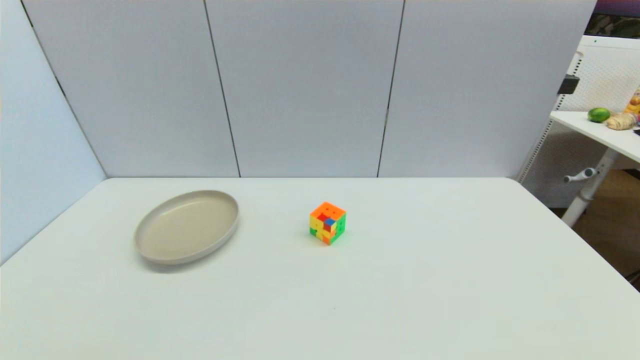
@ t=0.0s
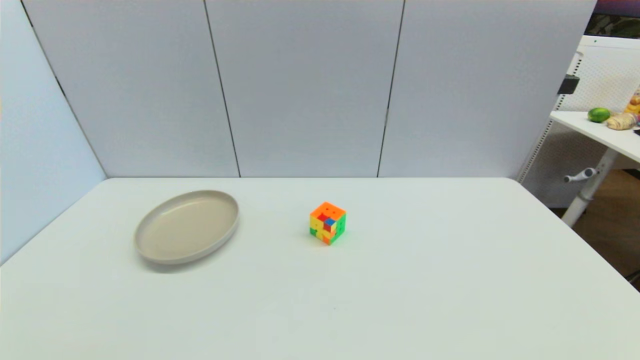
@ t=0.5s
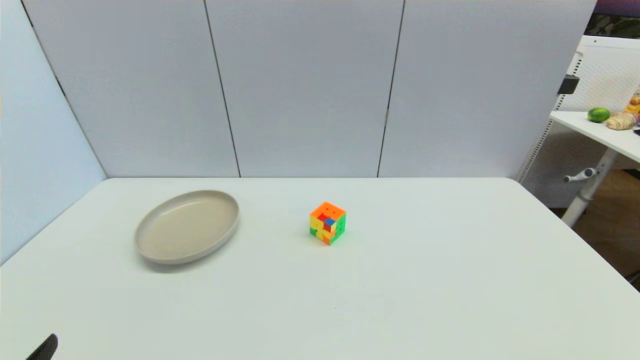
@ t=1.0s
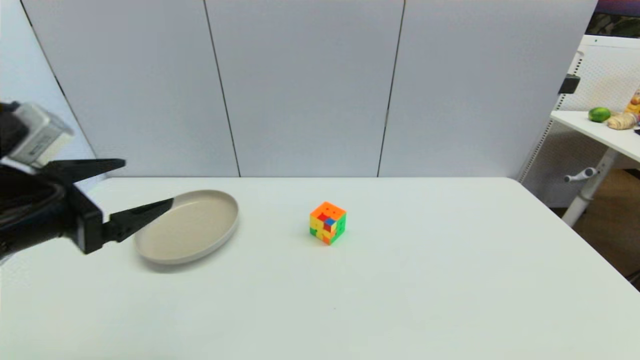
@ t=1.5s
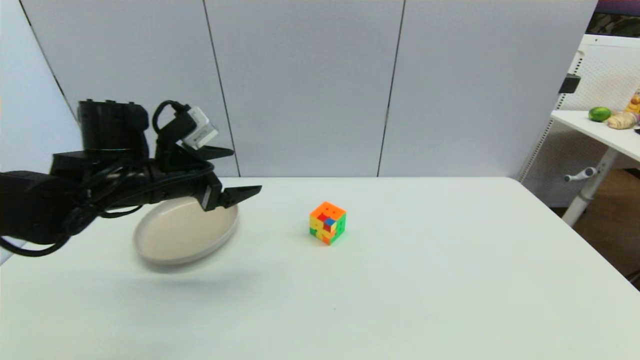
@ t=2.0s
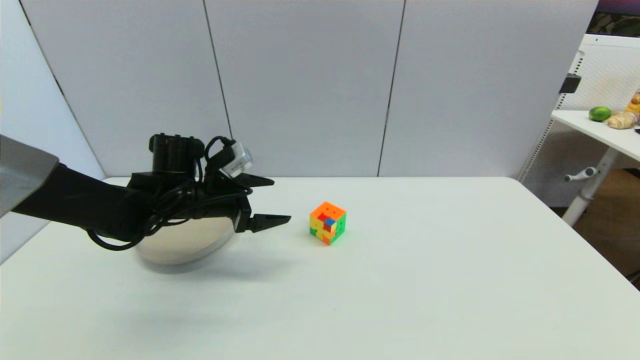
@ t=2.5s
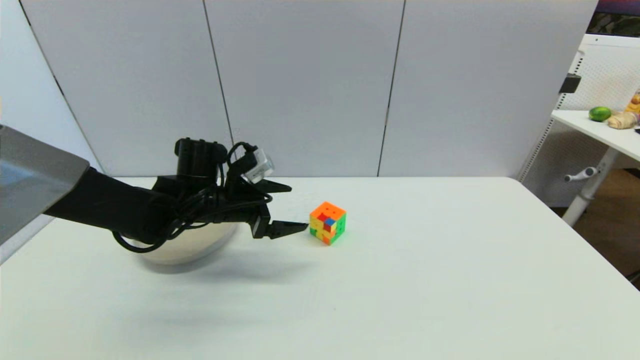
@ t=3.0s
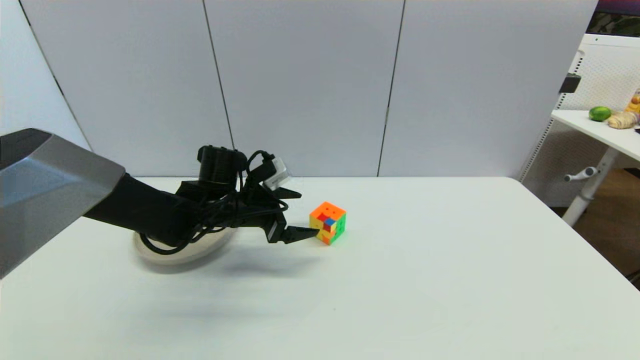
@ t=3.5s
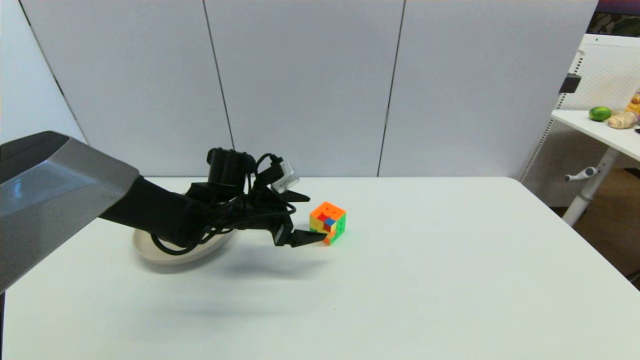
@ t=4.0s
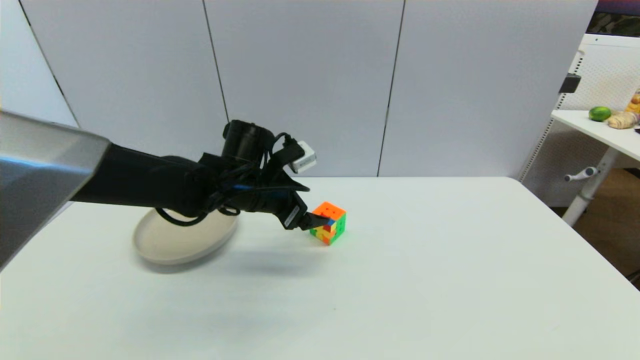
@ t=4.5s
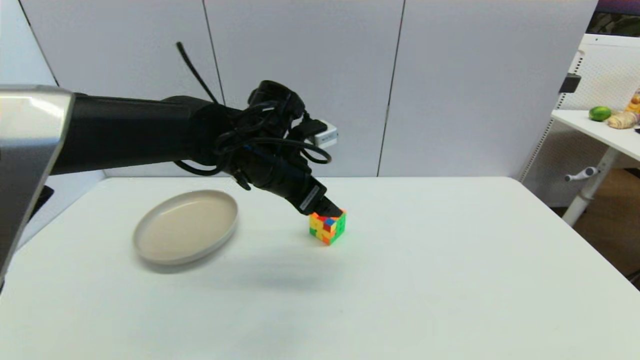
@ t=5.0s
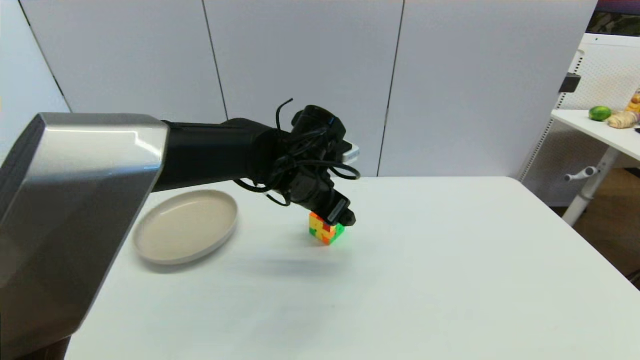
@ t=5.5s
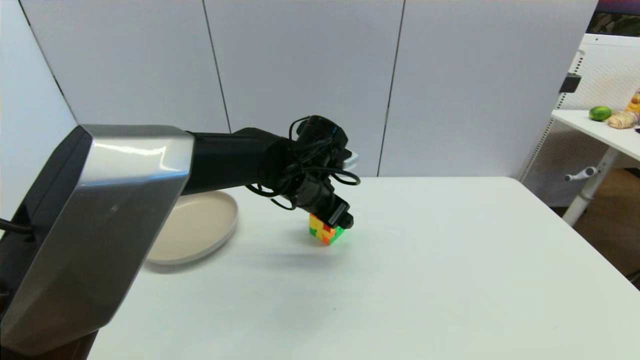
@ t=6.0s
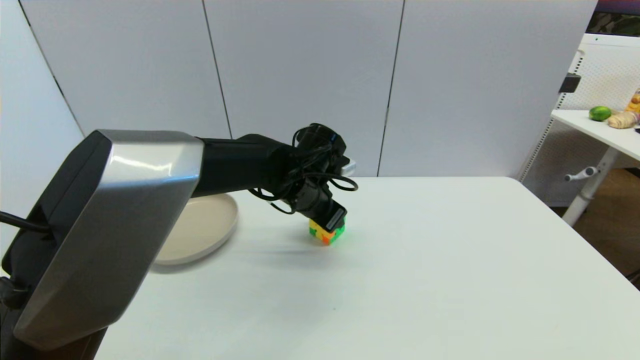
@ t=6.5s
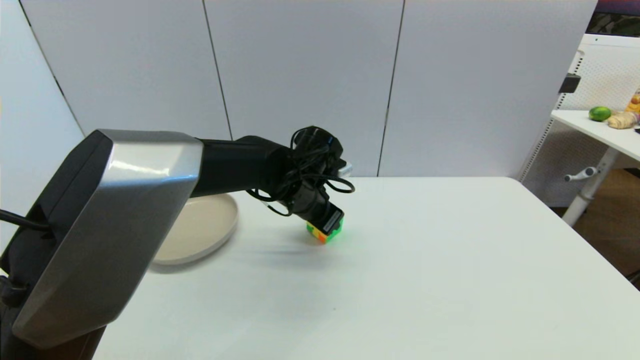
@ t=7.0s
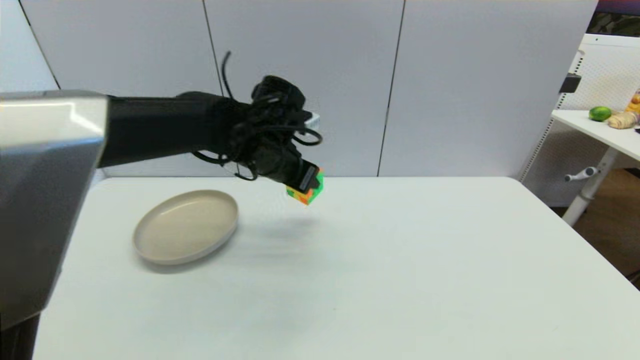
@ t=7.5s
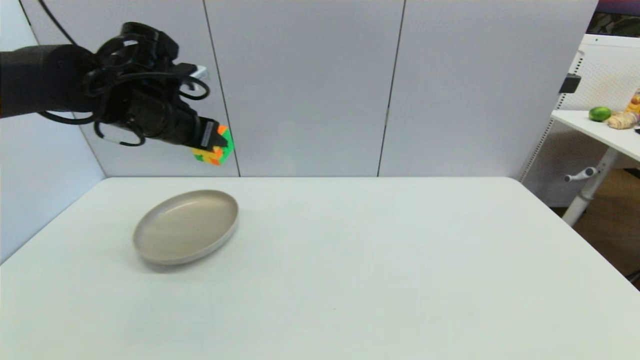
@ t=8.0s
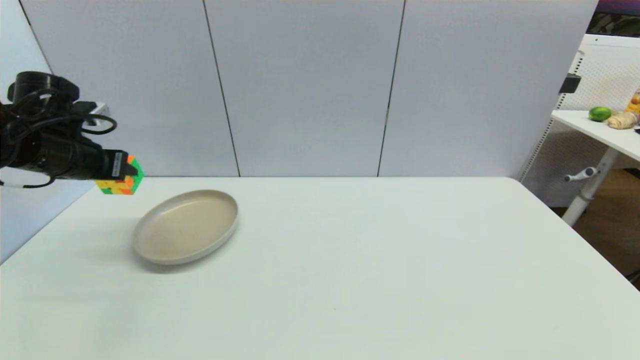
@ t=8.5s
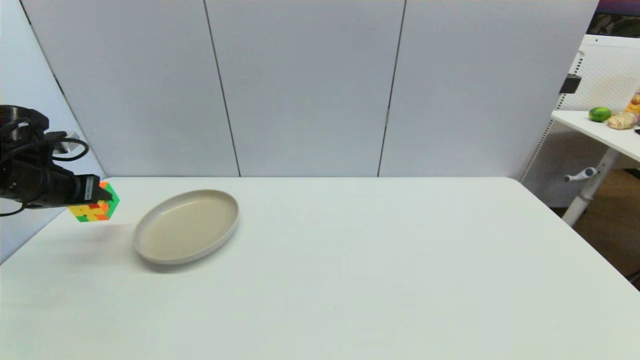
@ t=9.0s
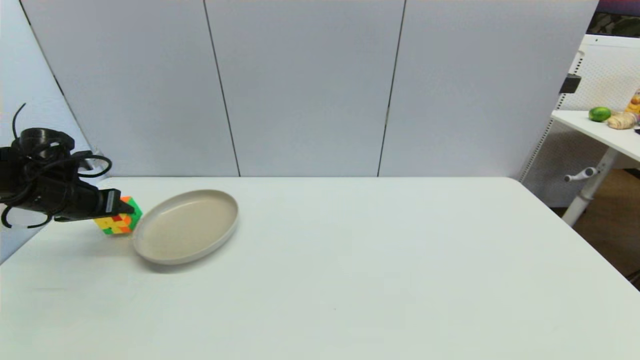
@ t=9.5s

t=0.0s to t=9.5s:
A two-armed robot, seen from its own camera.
Step, t=1.0s to t=6.5s: Grasp the magic cube with left gripper.
t=0.0s to t=2.0s: The left gripper is displaced forward and upward by some 35 cm.
t=2.0s to t=4.0s: The left gripper shifts approximately 15 cm to the right, downward and forward.
t=4.0s to t=5.5s: The left gripper heads to the right and upward, covering about 15 cm.
t=5.5s to t=7.5s: The left gripper changes place by some 5 cm, and closes up.
t=7.5s to t=9.5s: The left gripper is displaced to the left by roughly 35 cm.

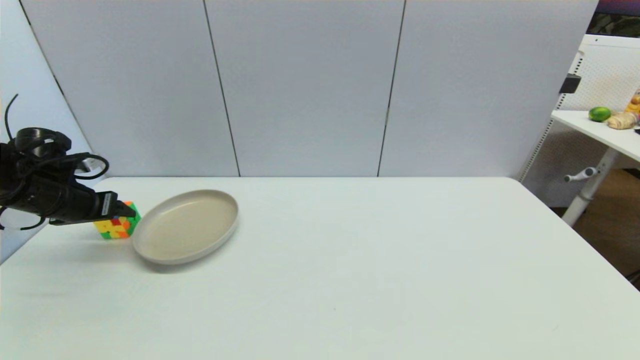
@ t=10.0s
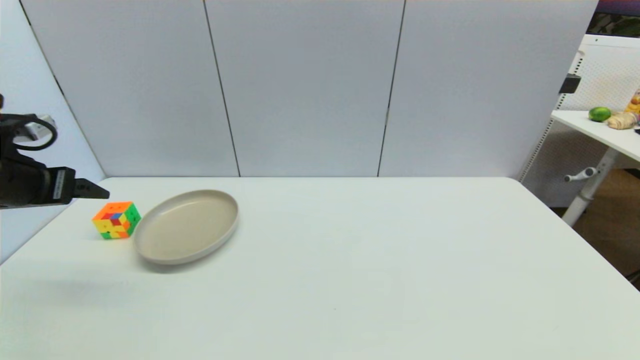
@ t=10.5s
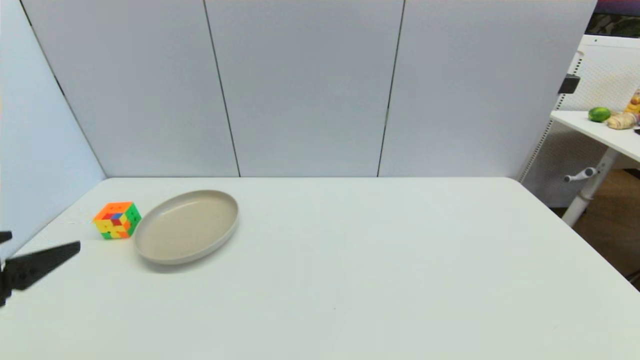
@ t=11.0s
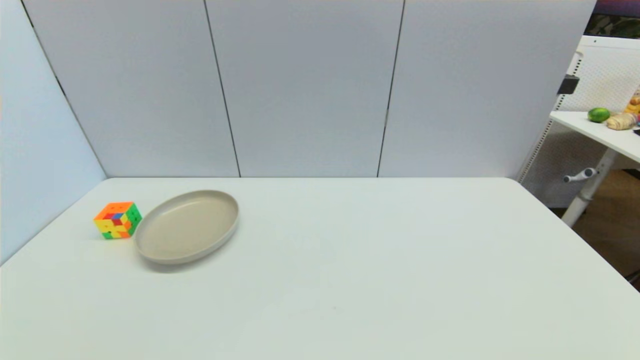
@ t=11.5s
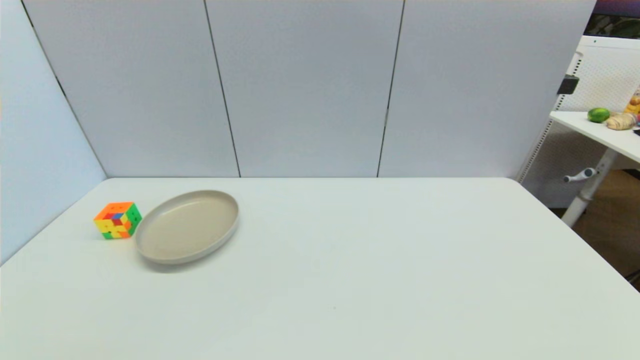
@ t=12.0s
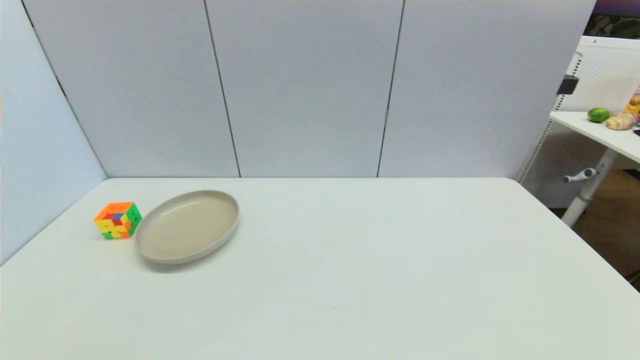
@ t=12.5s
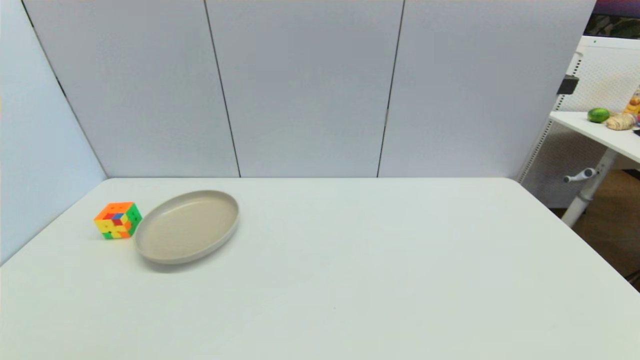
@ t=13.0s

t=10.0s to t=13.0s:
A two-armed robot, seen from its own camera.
t=10.0s to t=11.5s: The left gripper moves backward, some 35 cm, and opens.

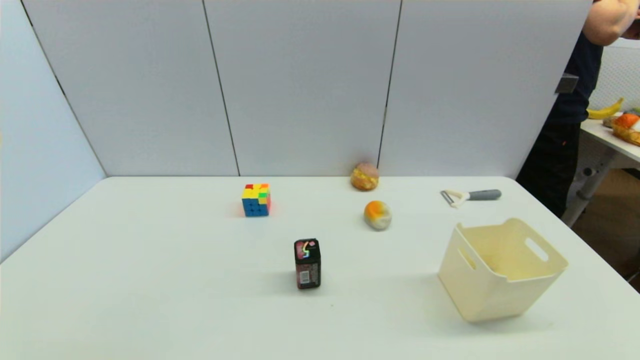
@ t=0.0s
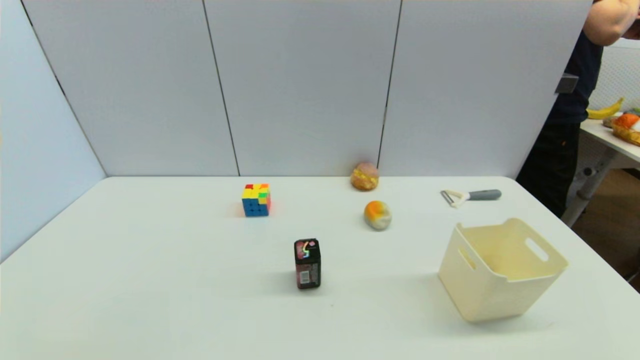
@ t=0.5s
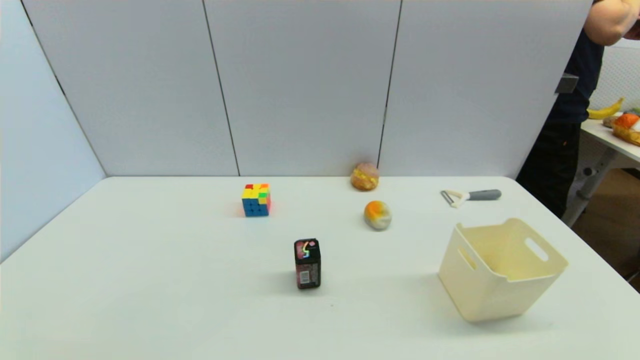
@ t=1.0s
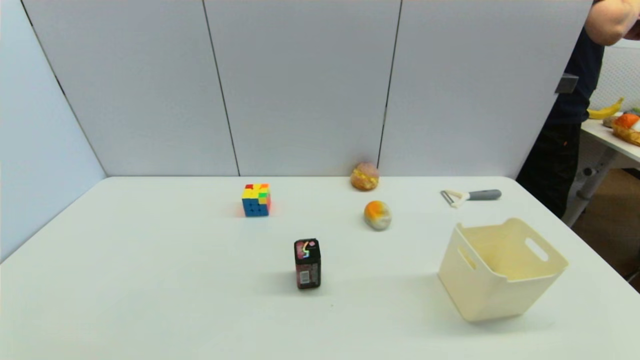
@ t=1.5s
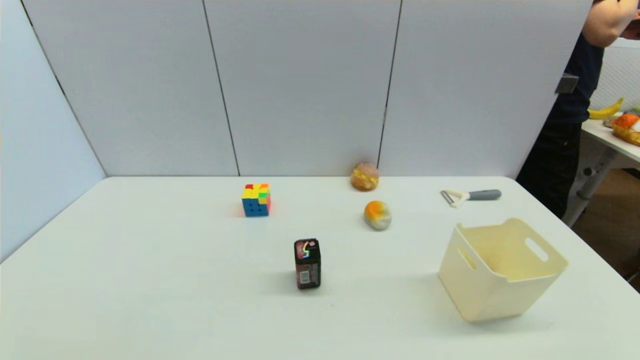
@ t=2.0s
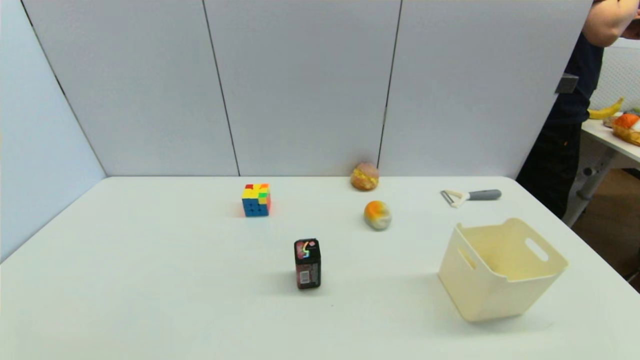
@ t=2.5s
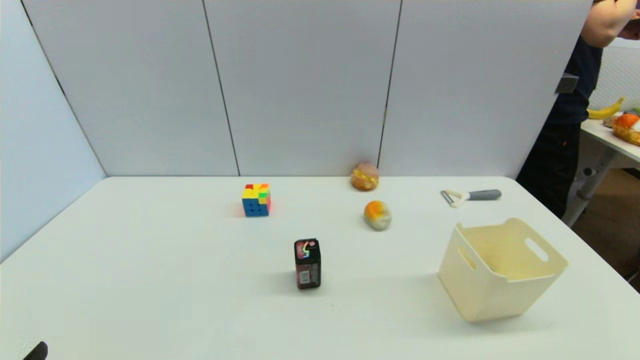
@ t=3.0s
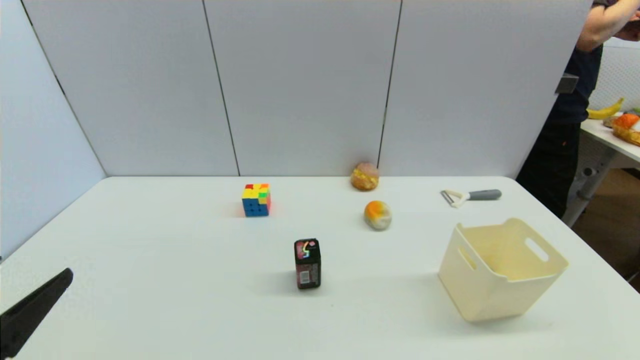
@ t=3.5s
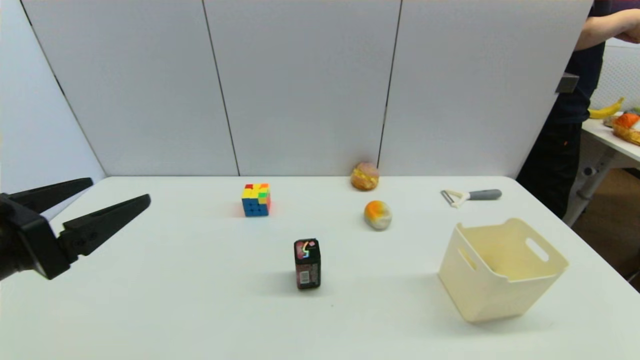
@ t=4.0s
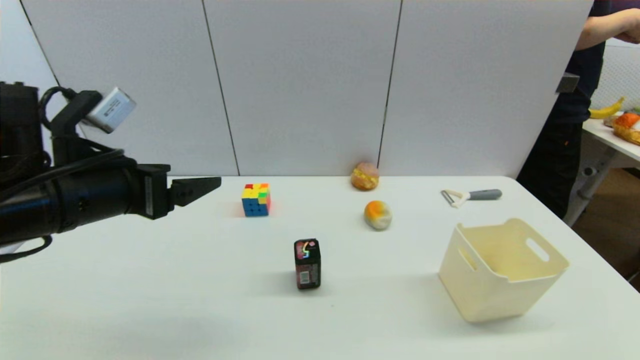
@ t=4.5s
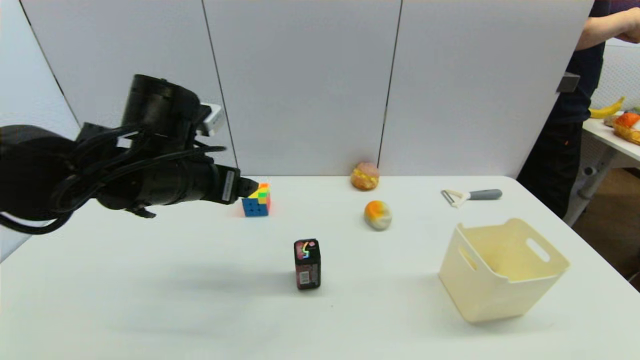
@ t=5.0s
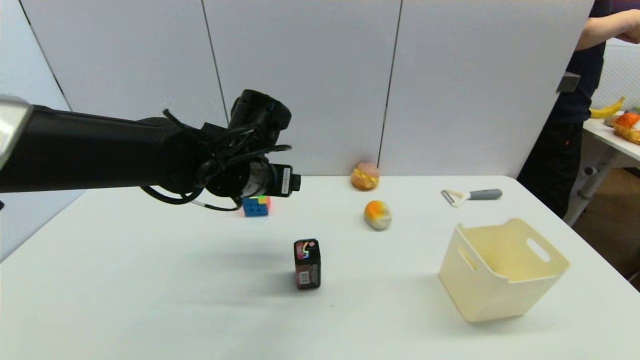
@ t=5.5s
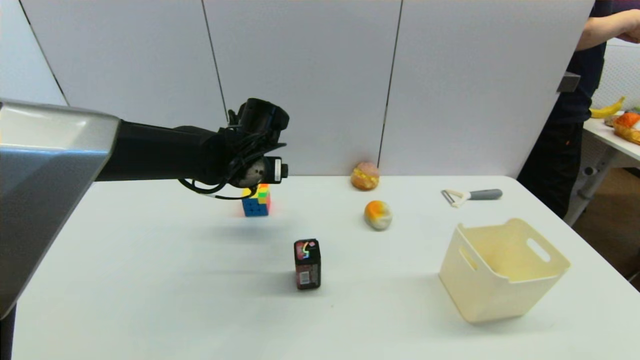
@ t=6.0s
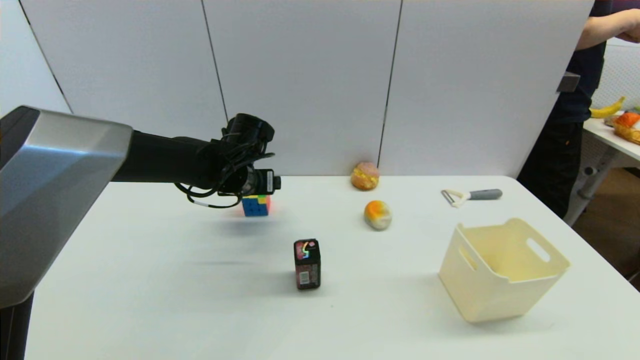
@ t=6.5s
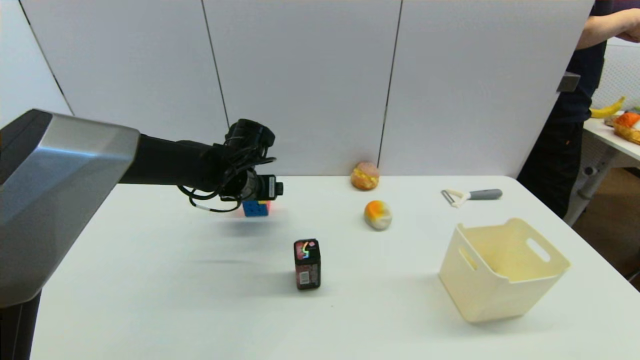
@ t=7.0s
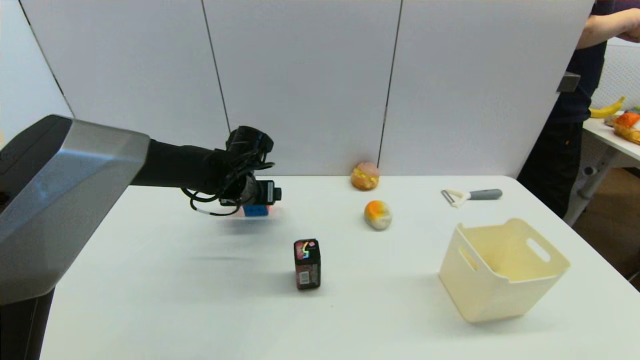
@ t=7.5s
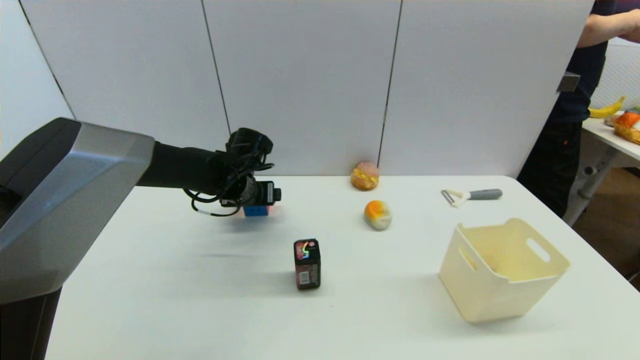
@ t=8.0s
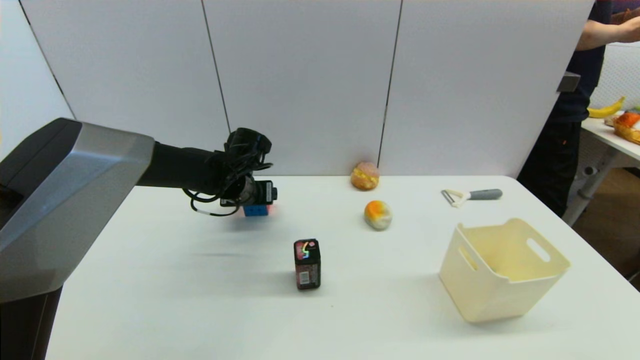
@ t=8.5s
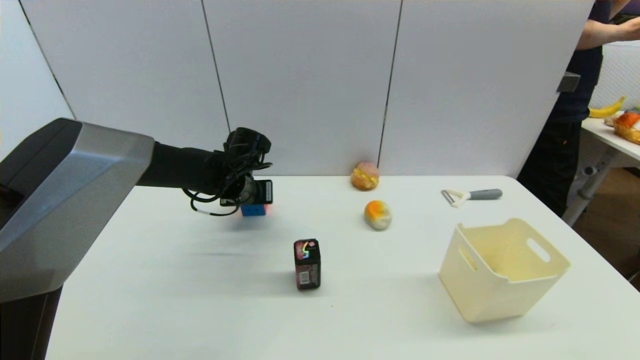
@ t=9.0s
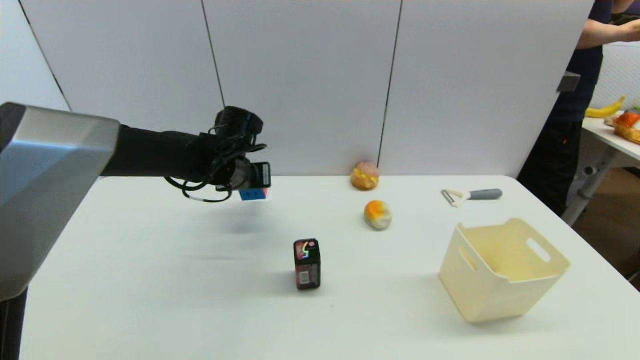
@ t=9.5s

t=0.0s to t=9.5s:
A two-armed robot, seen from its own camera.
Step, t=3.0s to t=9.0s: Grasp the magic cube with left gripper.
t=0.0s to t=2.0s: Both grippers stay put.
t=2.0s to t=4.0s: The left gripper goes roughly 20 cm upward and forward.
t=4.0s to t=5.5s: The left gripper shifts roughly 25 cm forward and to the right.
t=5.5s to t=7.5s: The left gripper travels forward and downward by approximately 10 cm.
t=7.5s to t=9.5s: The left gripper closes.
